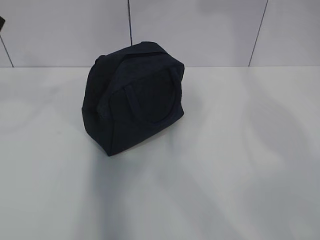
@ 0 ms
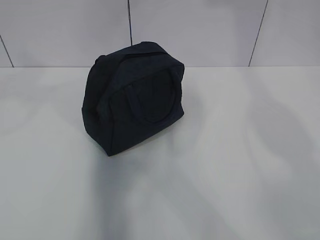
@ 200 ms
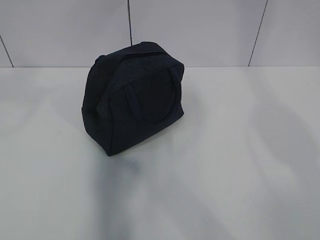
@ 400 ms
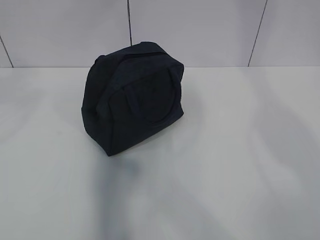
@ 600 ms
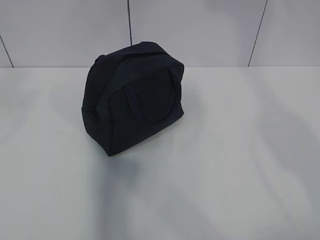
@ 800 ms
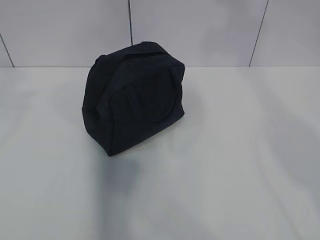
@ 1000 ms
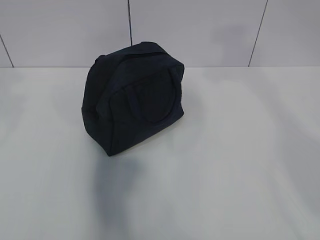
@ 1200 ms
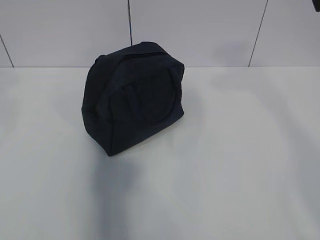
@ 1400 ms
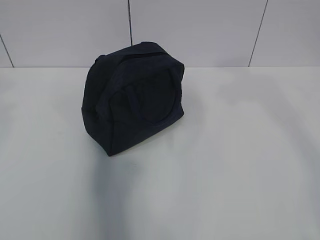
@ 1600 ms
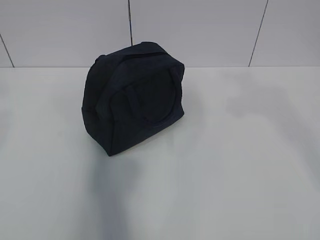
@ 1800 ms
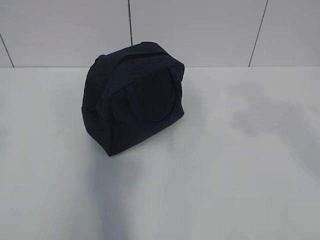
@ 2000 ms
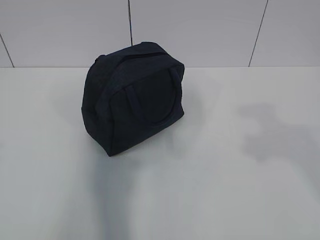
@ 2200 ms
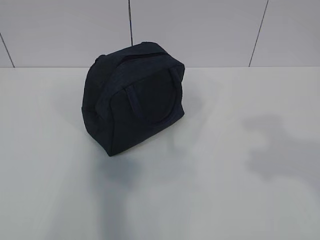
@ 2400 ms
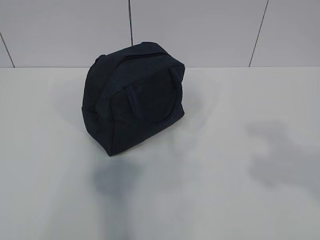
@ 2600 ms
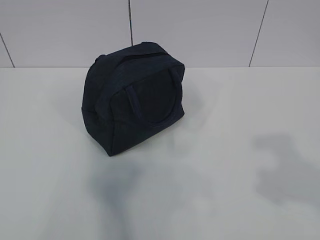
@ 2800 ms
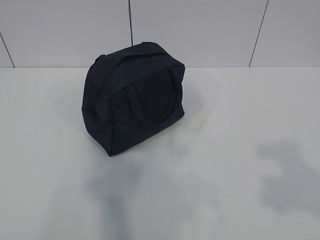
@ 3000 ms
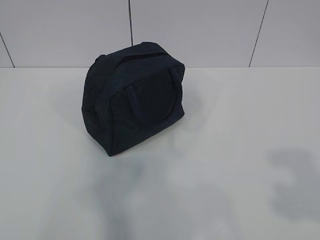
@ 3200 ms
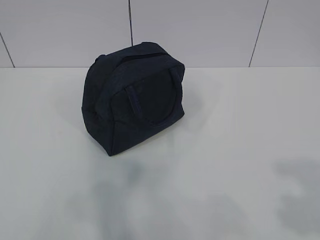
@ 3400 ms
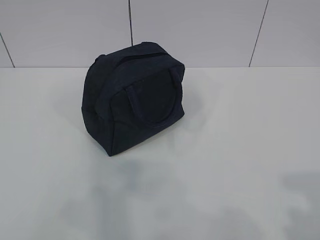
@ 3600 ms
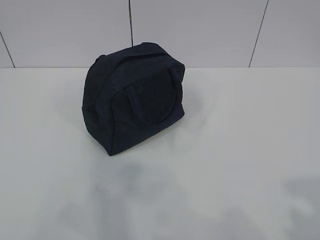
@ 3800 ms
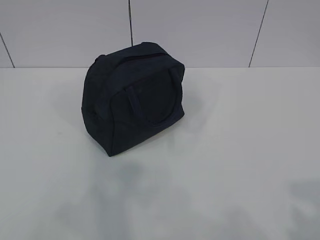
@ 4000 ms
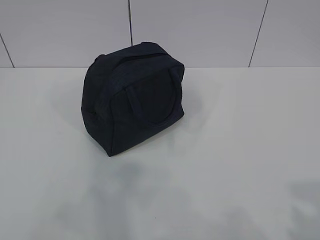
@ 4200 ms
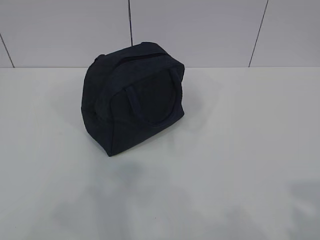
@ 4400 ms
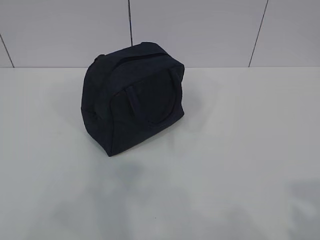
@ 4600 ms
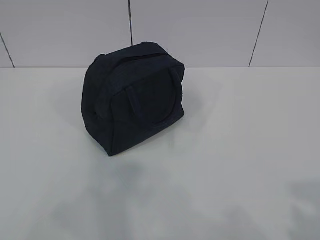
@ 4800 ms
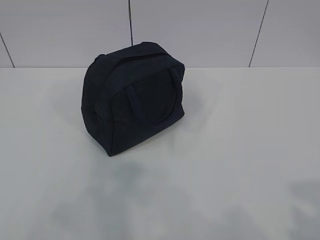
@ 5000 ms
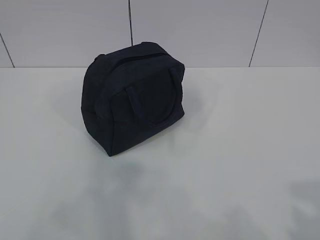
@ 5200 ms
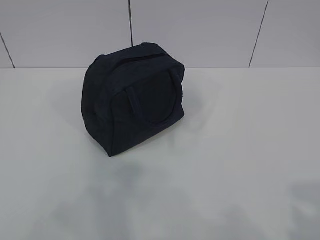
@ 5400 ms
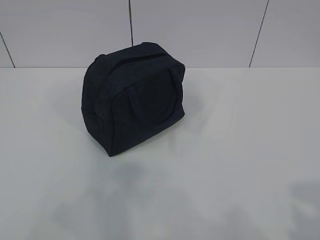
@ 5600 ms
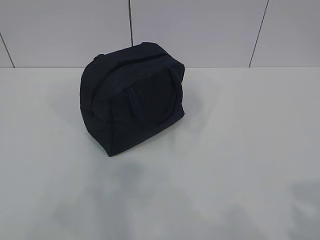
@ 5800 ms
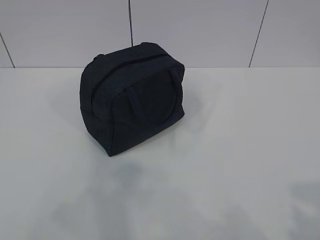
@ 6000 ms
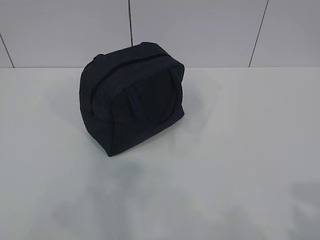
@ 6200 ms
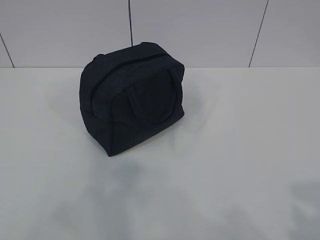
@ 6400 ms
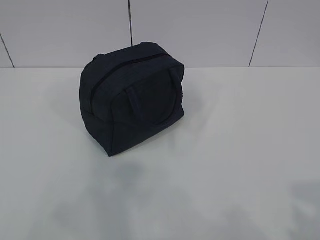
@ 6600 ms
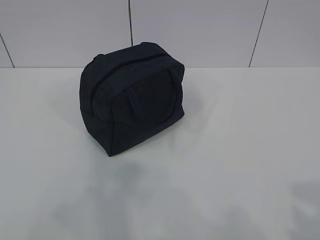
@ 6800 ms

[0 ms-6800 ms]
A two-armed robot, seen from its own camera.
1400 ms to 2800 ms: The grippers both shift backward and downward by about 20 cm.
2800 ms to 4000 ms: The right gripper travels backward and downward by some 10 cm.
4000 ms to 6800 ms: Both grippers stay about where they are.
